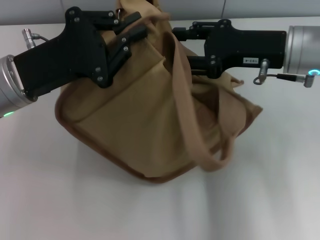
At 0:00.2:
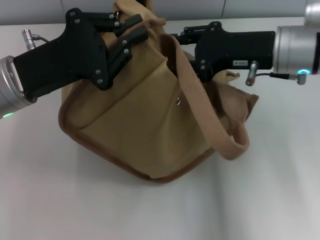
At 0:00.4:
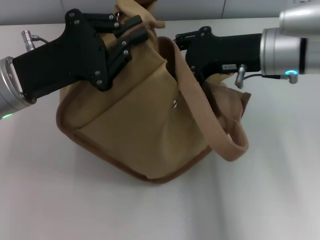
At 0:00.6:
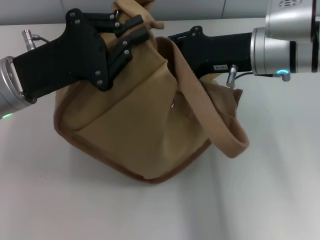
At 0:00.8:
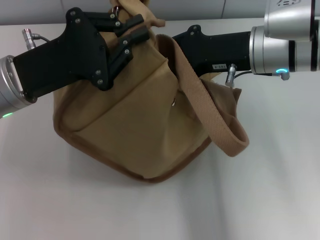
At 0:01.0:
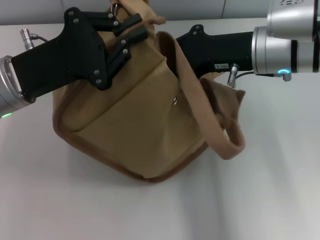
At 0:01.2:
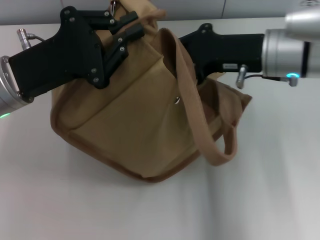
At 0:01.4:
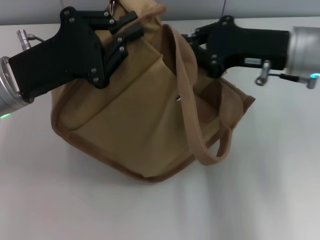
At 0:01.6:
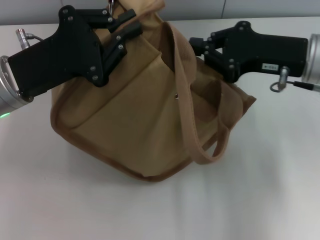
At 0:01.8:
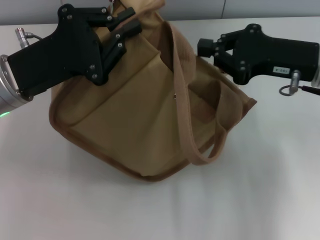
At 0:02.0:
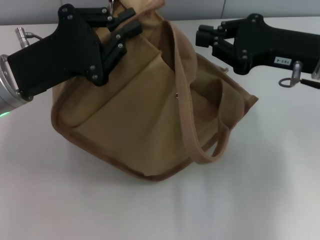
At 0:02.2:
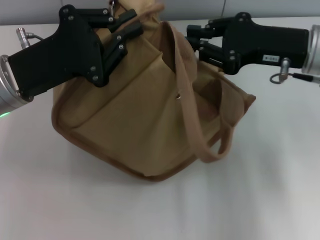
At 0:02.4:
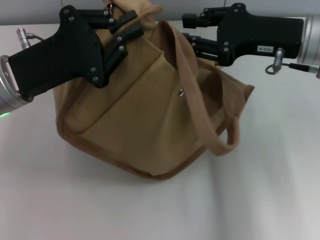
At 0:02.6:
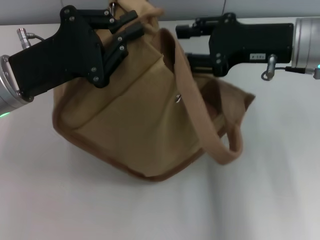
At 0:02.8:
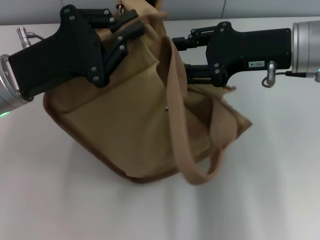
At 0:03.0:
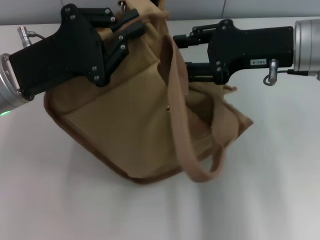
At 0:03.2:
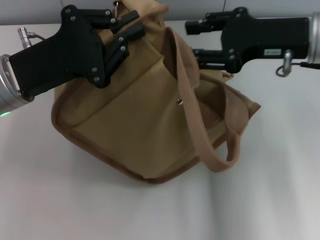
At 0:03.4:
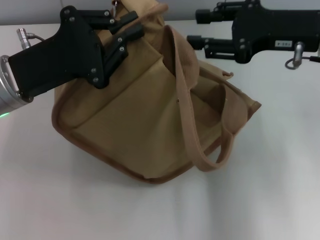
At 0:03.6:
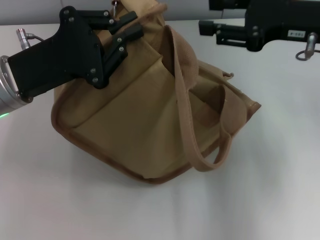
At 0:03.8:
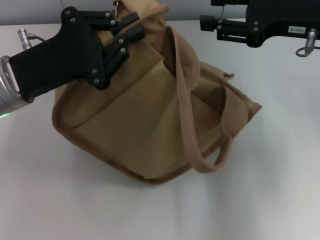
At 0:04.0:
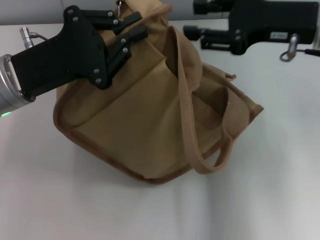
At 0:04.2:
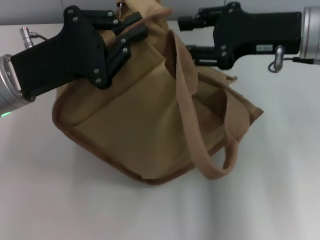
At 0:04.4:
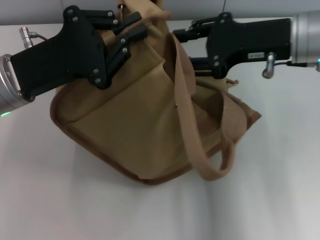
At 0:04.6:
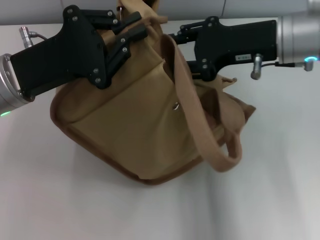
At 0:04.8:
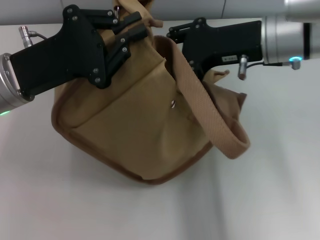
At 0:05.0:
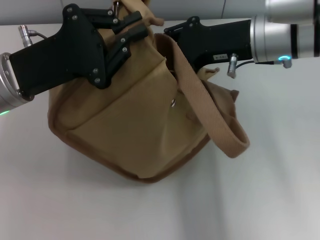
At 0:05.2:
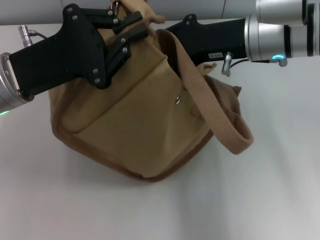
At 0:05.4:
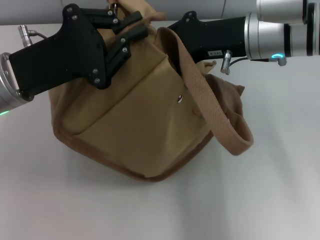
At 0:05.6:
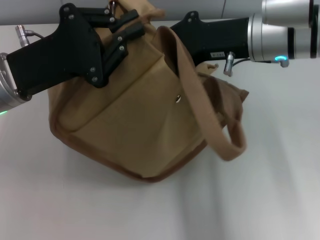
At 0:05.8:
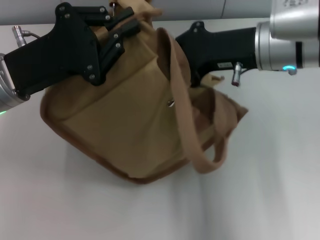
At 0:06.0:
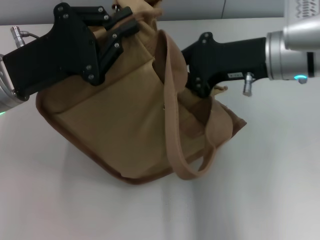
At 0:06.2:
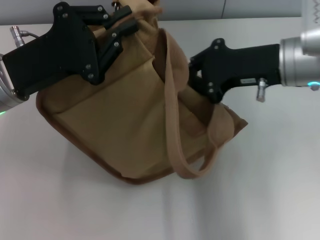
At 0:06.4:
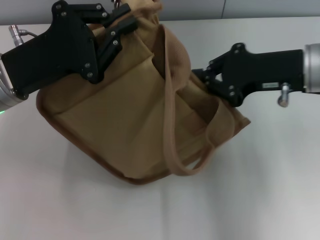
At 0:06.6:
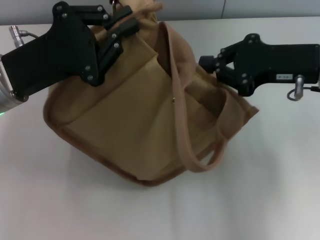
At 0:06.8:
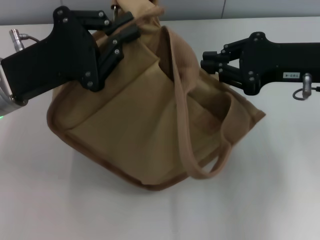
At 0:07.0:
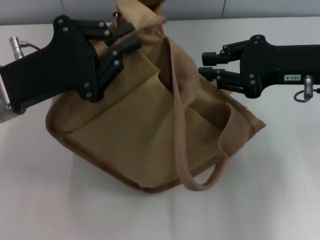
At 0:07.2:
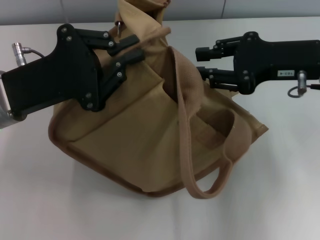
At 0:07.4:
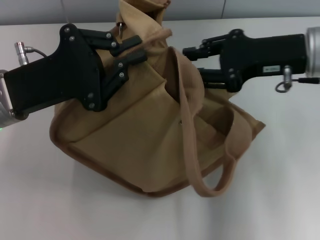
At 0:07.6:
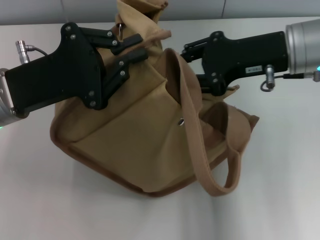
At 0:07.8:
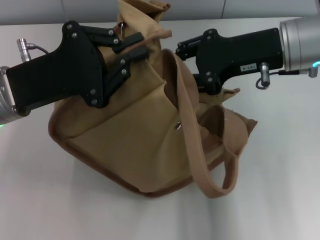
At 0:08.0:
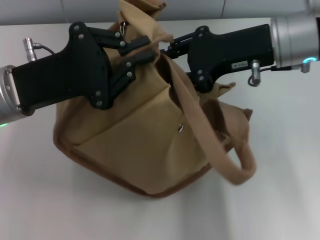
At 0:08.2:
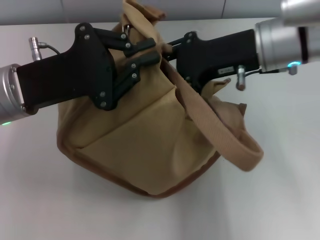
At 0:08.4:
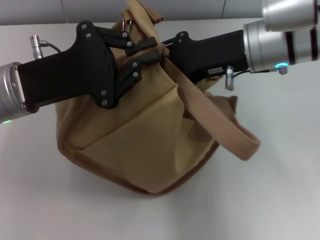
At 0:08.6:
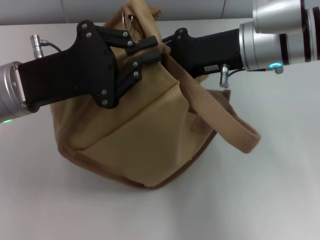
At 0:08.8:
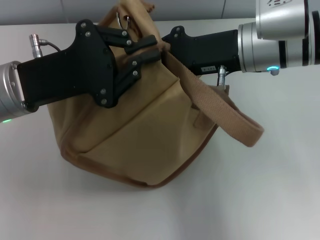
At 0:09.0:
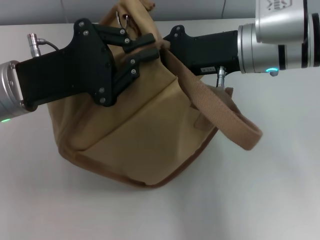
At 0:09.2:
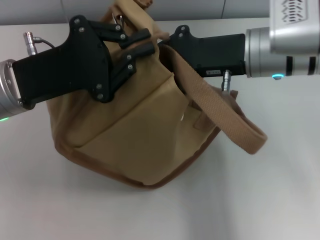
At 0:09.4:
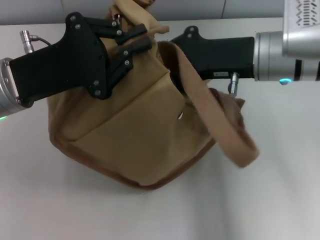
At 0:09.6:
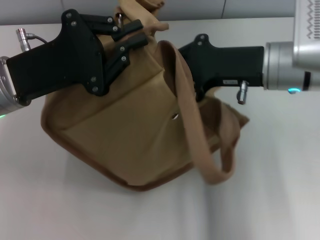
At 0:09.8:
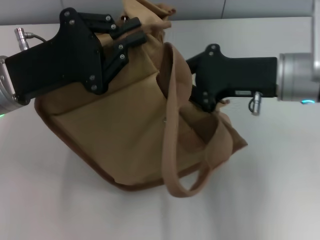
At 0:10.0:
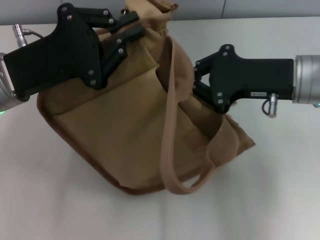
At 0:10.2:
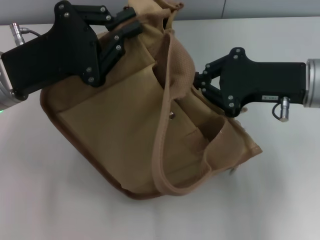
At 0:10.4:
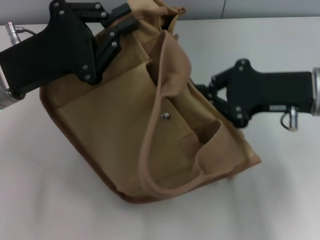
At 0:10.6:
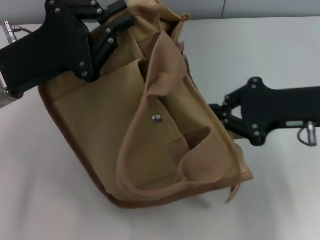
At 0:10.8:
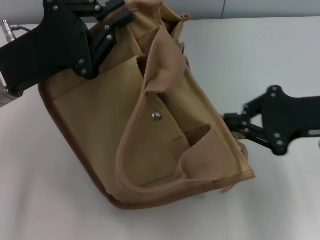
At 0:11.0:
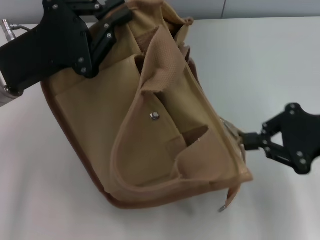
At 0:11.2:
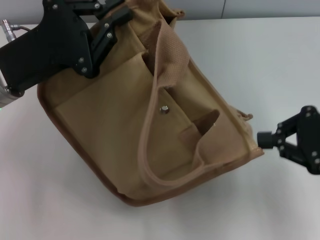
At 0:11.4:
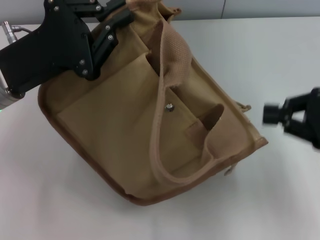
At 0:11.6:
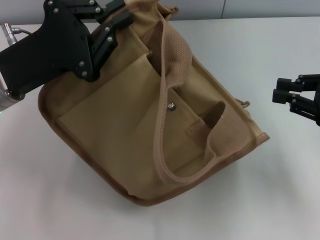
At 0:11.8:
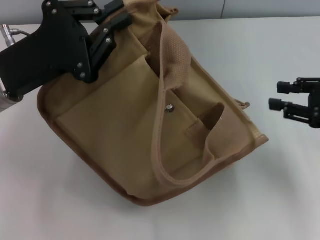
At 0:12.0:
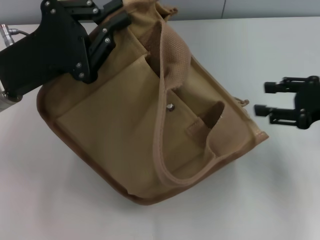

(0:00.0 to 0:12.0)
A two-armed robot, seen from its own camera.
0:00.0 - 0:01.6: The right gripper closes.
0:01.6 - 0:03.0: The right gripper opens its fingers.
0:03.0 - 0:04.4: The grippers move only a little.
0:04.4 - 0:06.0: The right gripper closes.
0:06.0 - 0:07.6: The right gripper opens.
0:07.6 - 0:09.0: The right gripper ends up some 5 cm from where it was, and closes its fingers.
0:09.0 - 0:10.4: The right gripper travels to the right and backward by about 10 cm.
0:10.4 - 0:12.0: The right gripper moves to the right, some 10 cm, and opens.

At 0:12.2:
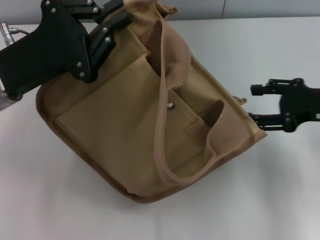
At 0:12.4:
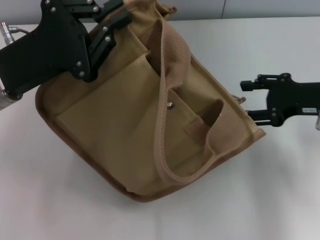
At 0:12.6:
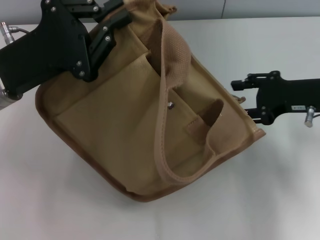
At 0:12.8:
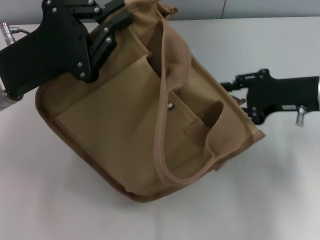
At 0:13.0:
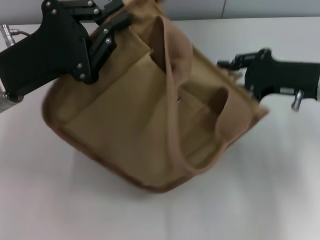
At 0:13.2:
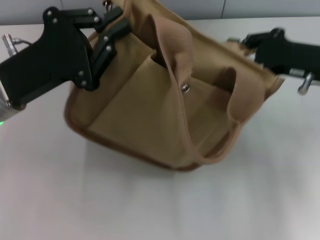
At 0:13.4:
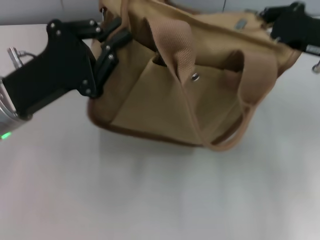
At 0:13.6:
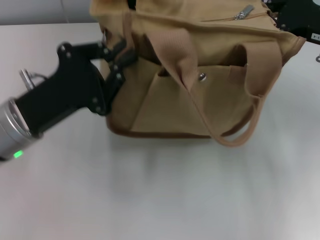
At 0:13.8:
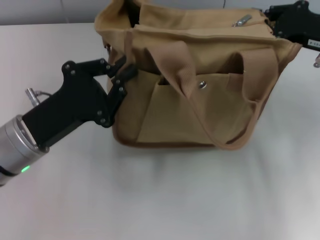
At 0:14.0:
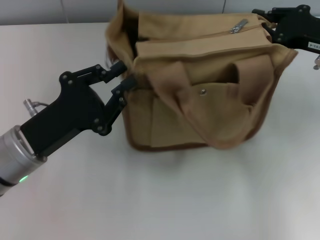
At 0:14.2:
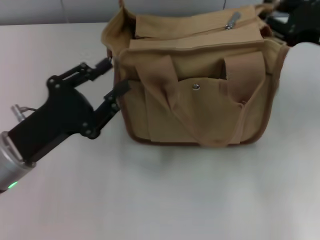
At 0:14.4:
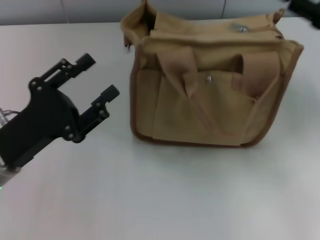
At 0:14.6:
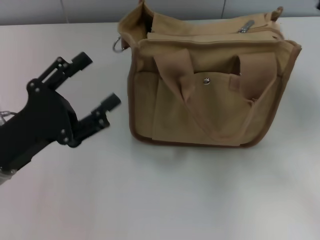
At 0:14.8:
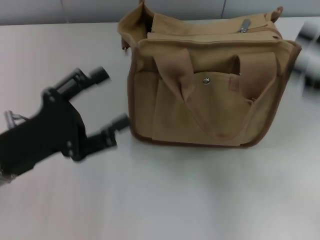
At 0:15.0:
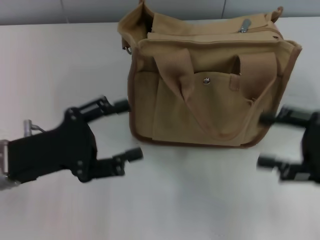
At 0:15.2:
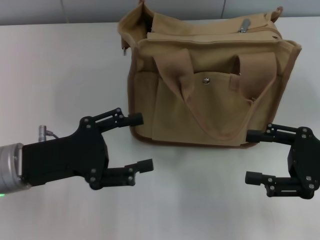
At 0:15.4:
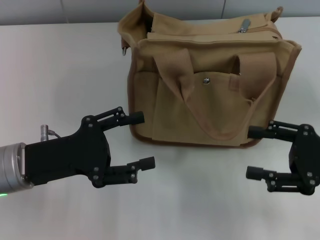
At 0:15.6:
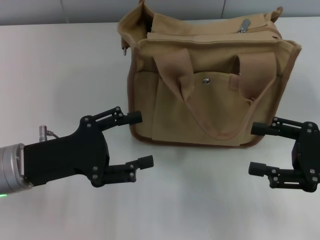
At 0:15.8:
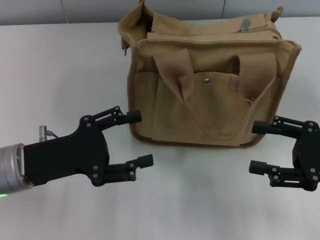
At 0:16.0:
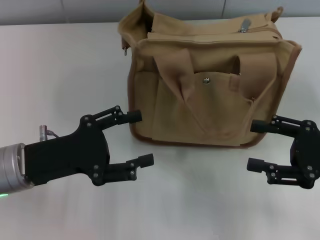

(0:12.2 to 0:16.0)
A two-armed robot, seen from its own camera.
Step, 0:12.6 - 0:14.2: Grab the bag with your left hand.
0:12.2 - 0:13.4: The right gripper moves roughly 5 cm, and closes up.
0:13.4 - 0:14.8: The left gripper goes some 5 cm backward, and opens. Meanwhile the right gripper moves backward, about 10 cm, and opens its fingers.
0:14.8 - 0:16.0: The right gripper moves approximately 5 cm.

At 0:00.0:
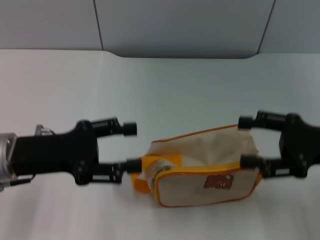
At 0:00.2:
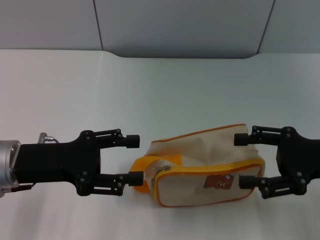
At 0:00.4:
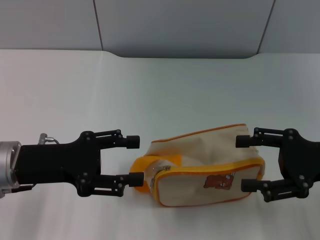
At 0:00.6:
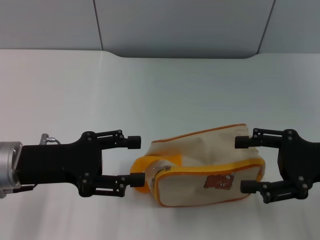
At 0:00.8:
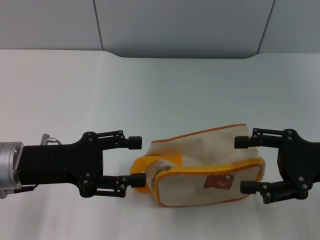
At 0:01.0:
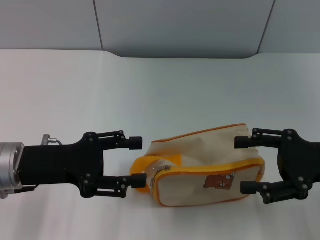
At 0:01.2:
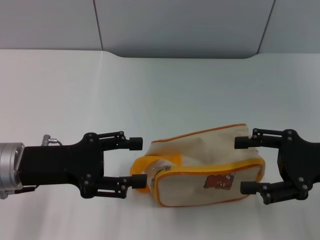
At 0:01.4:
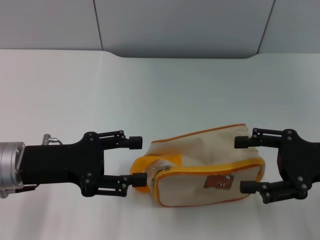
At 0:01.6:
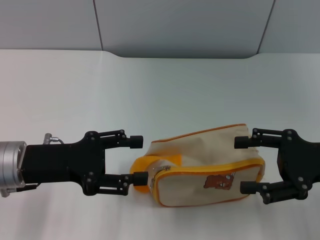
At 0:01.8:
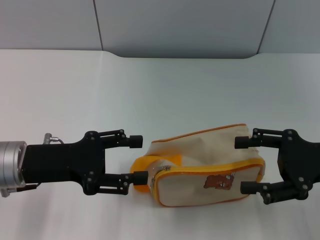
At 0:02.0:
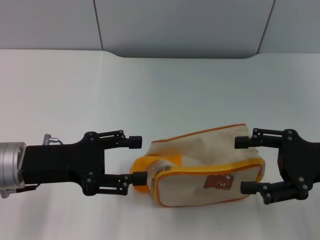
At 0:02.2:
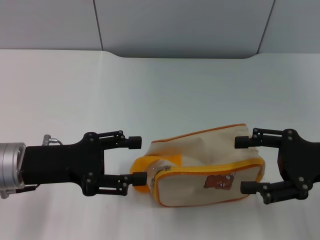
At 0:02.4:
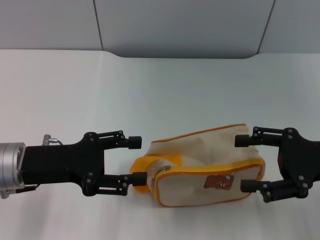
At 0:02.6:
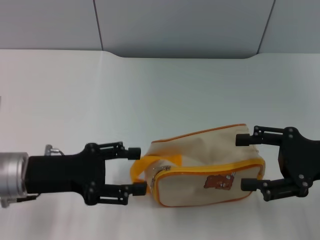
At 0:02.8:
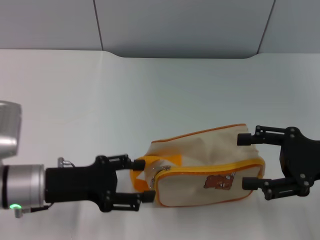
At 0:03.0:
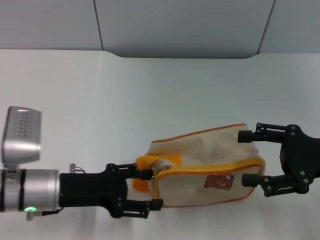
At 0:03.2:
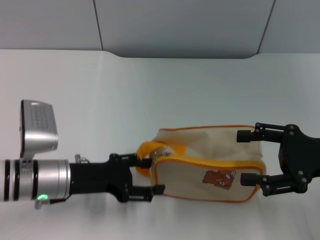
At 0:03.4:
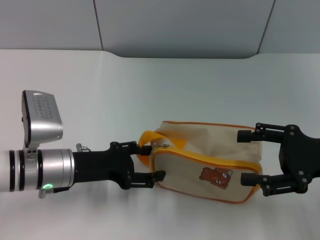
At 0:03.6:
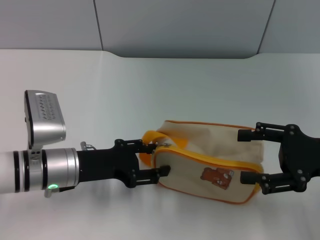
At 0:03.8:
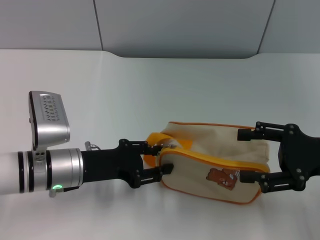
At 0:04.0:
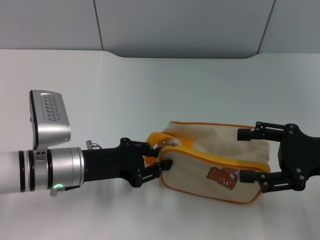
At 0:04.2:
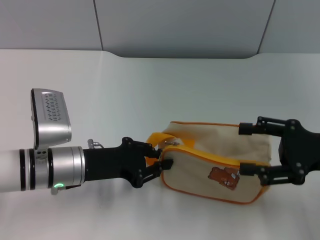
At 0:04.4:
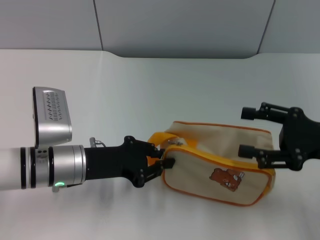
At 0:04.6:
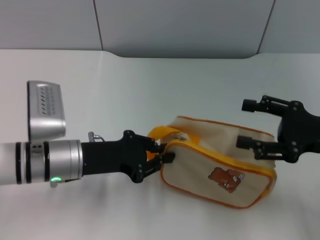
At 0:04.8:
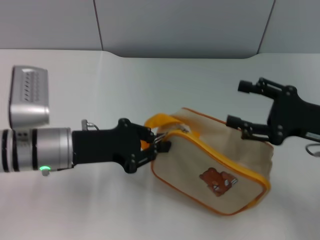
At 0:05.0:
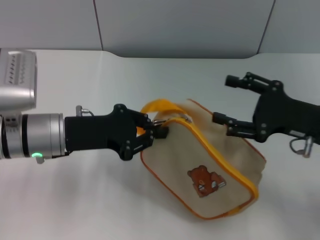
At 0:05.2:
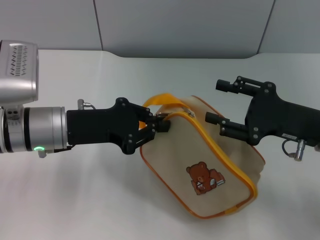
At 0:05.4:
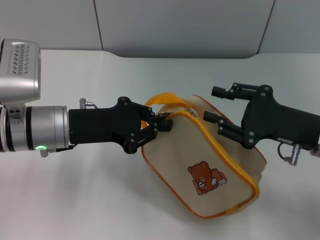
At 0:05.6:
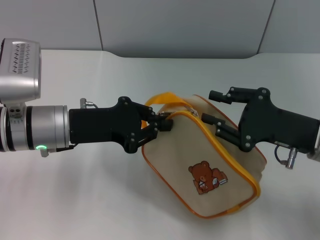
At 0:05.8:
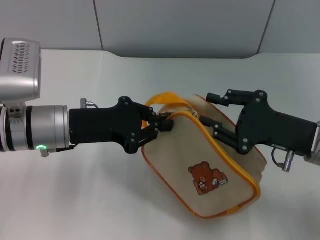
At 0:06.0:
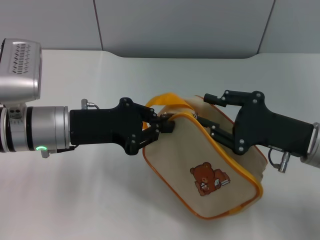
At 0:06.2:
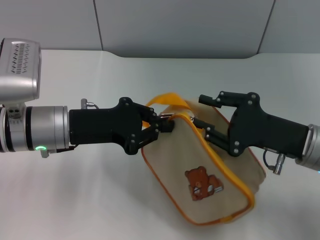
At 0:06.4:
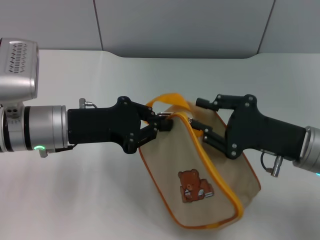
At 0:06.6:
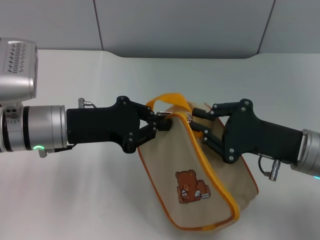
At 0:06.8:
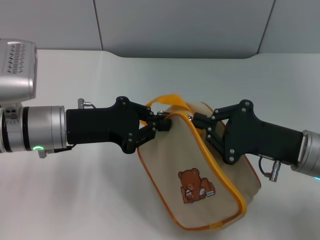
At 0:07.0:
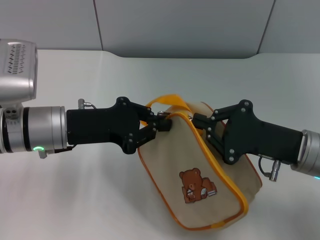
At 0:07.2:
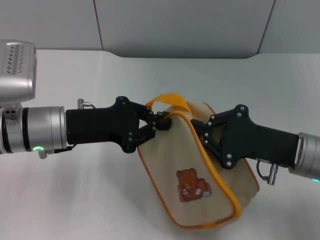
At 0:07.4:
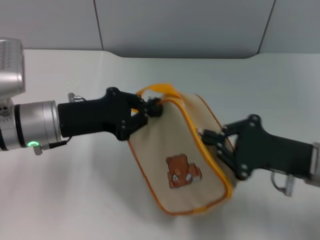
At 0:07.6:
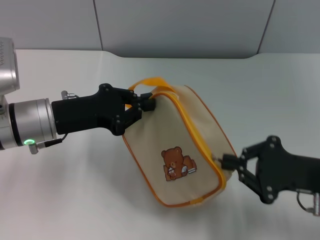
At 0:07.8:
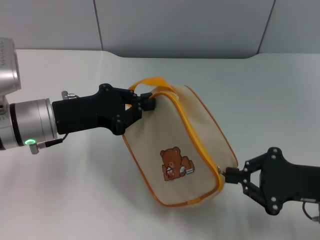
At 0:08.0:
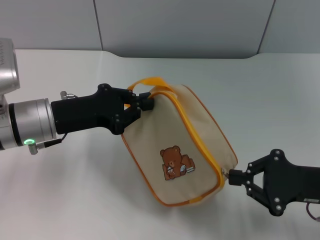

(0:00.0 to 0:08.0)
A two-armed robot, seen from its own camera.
Step, 0:00.0 - 0:04.8: Pick up the bag with left gripper.
0:00.0 - 0:01.6: The grippers stay close to where they were, moving slightly.
0:01.6 - 0:03.2: The left gripper shifts roughly 5 cm downward.
0:03.2 - 0:04.8: The left gripper closes up.
0:04.8 - 0:06.4: The right gripper shifts some 5 cm to the left, and closes up.
0:06.4 - 0:08.0: The right gripper travels to the right by about 5 cm, and closes its fingers.
